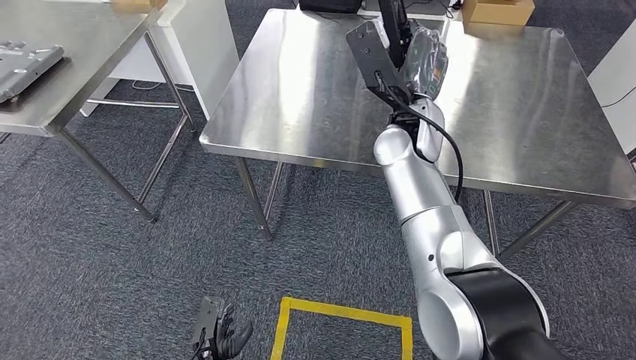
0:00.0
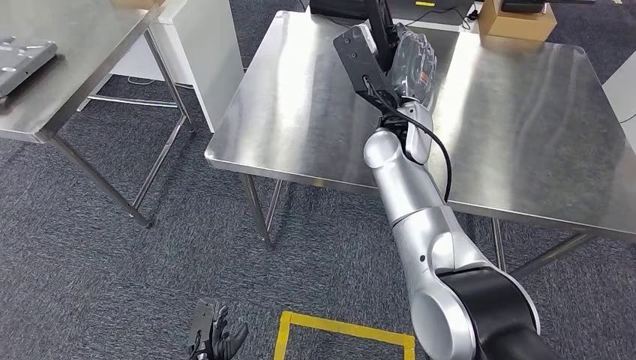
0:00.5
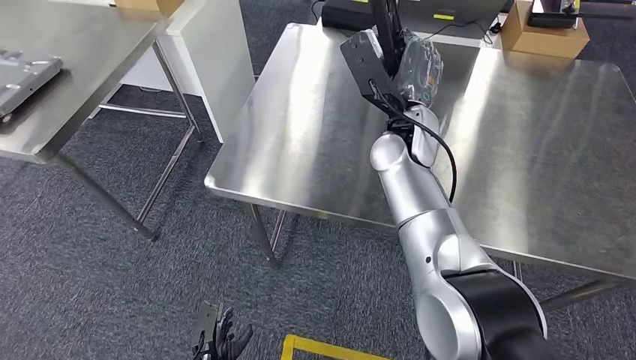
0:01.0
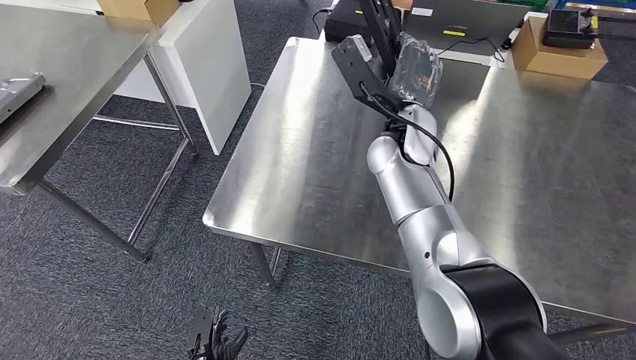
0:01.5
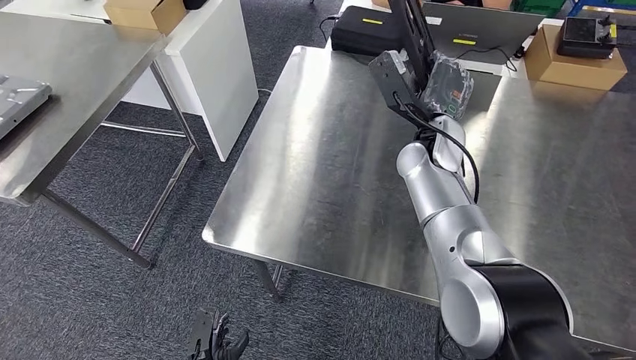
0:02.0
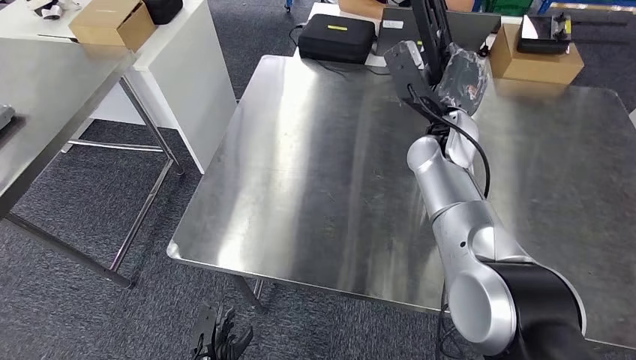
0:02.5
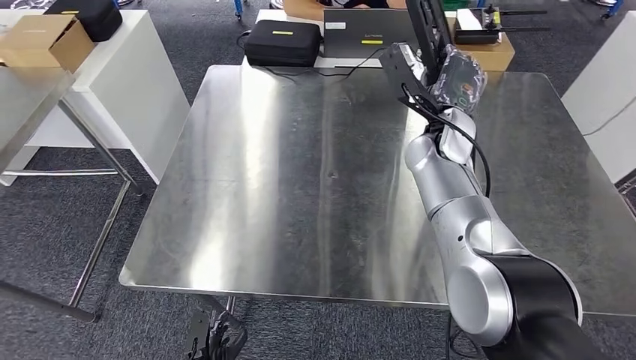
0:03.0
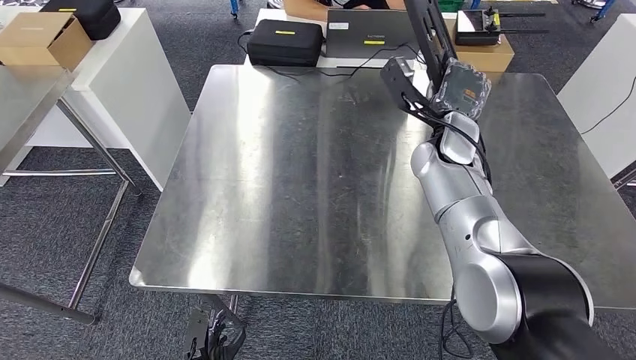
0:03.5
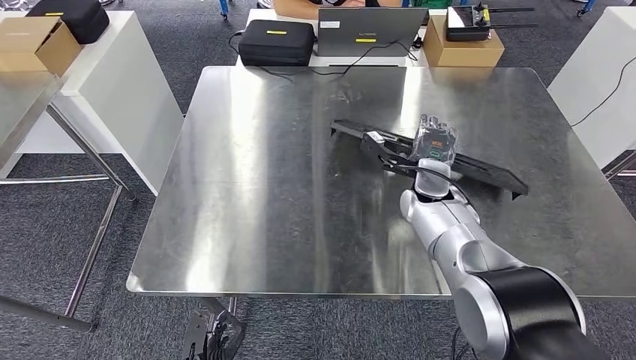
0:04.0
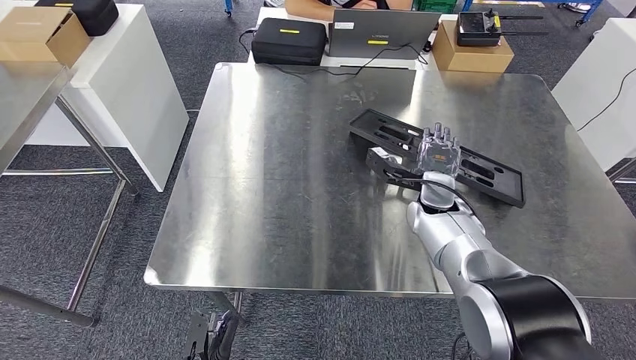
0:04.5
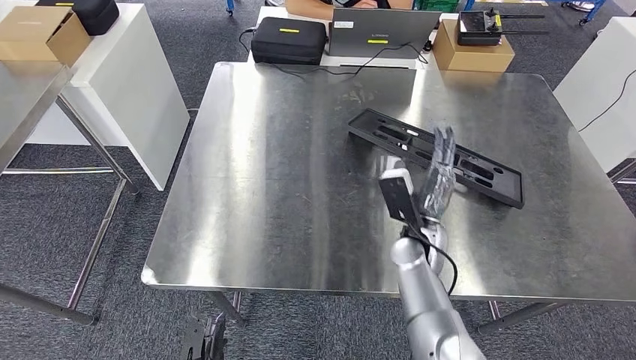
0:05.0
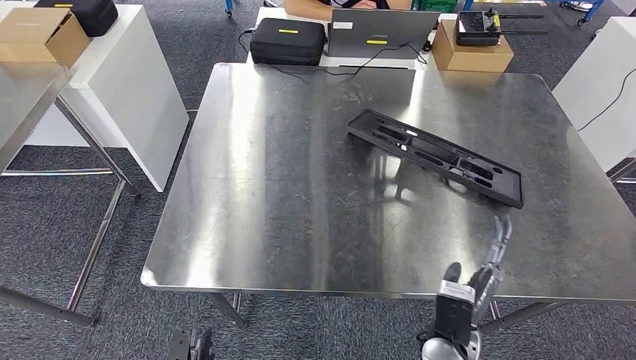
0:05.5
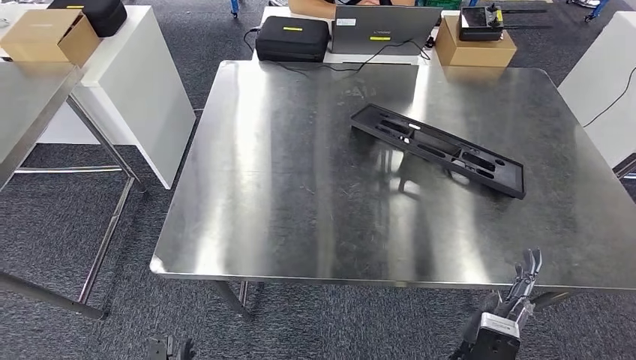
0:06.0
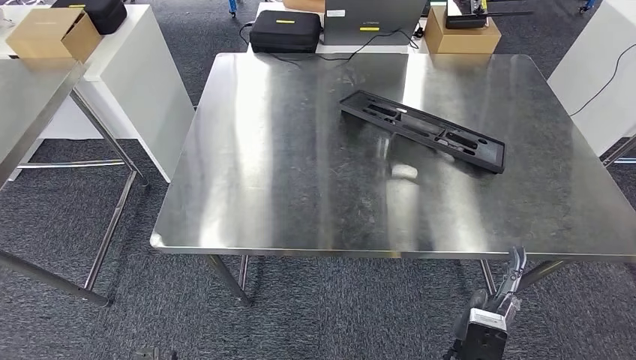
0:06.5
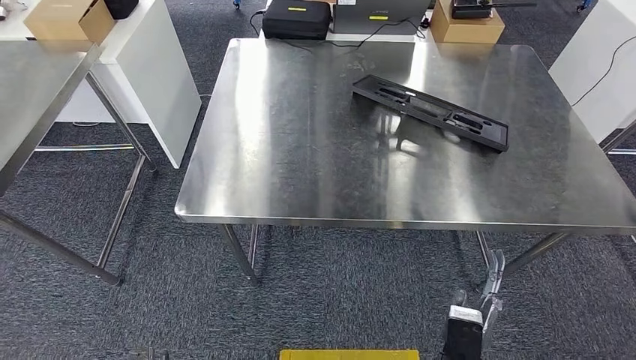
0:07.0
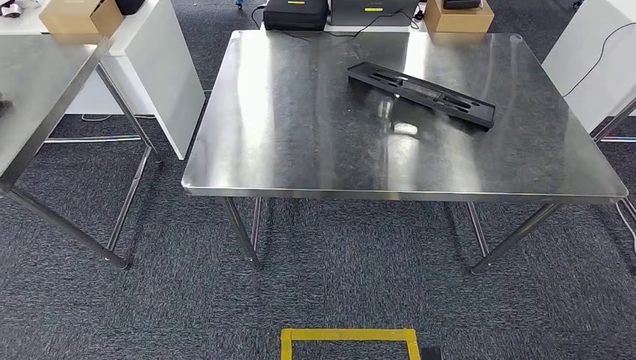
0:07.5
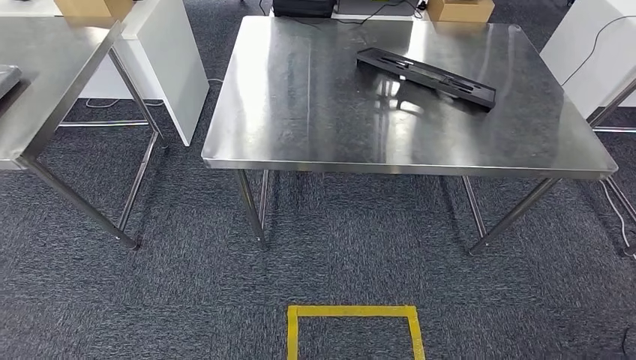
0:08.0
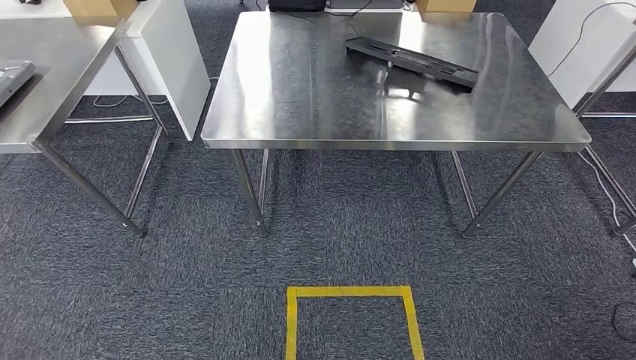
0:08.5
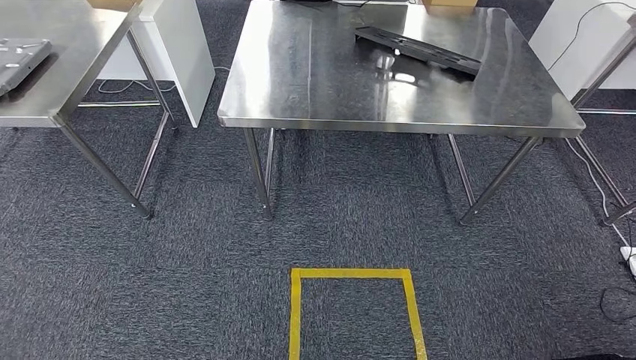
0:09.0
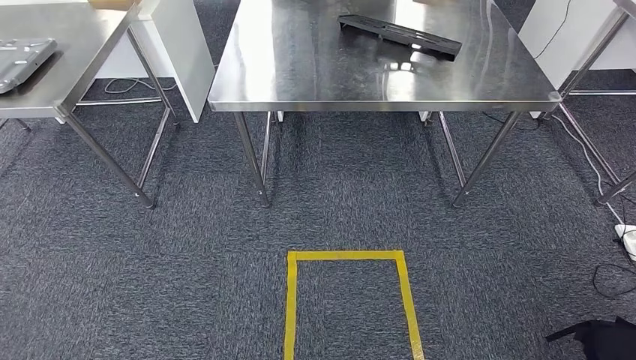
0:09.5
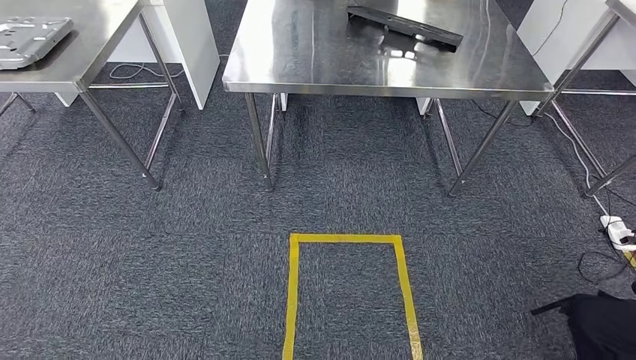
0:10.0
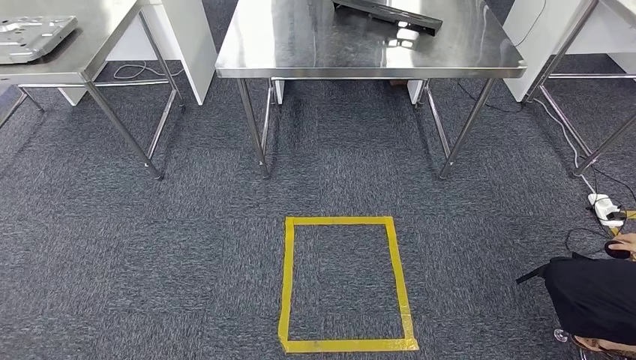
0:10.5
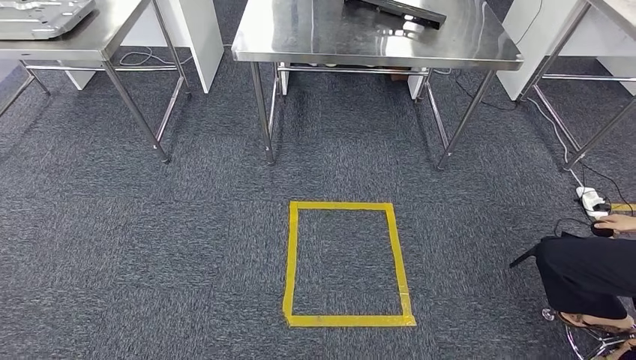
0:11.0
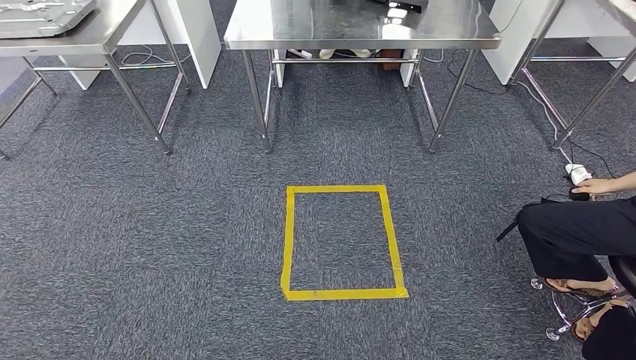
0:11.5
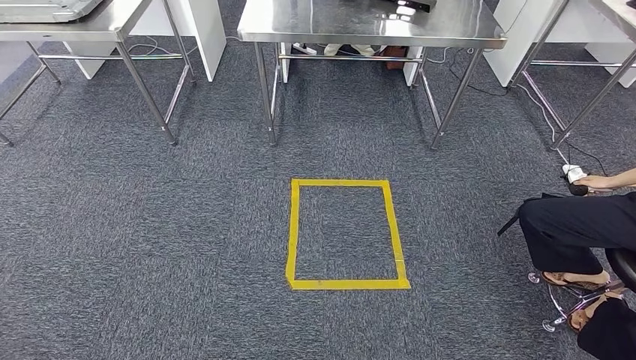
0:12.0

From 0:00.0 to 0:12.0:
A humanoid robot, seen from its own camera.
Step, from 0:00.0 to 0:05.0: Insert the large material into the corresponding hole on the workbench.

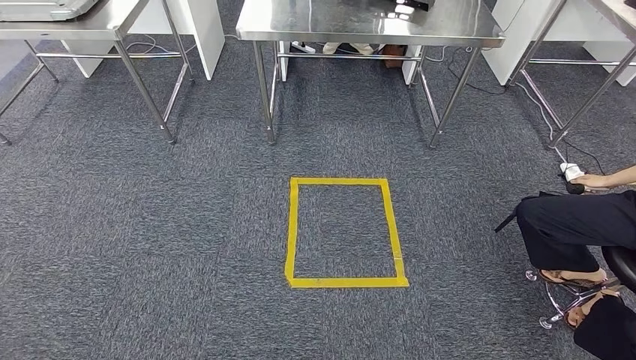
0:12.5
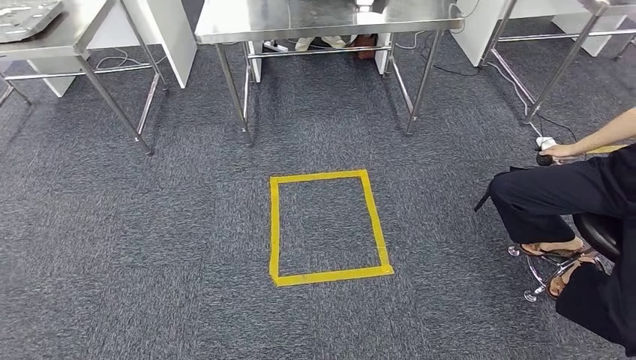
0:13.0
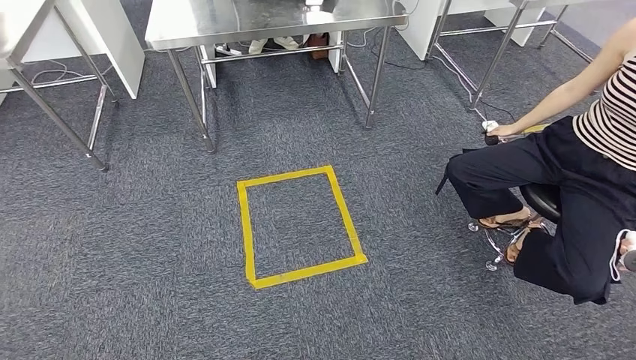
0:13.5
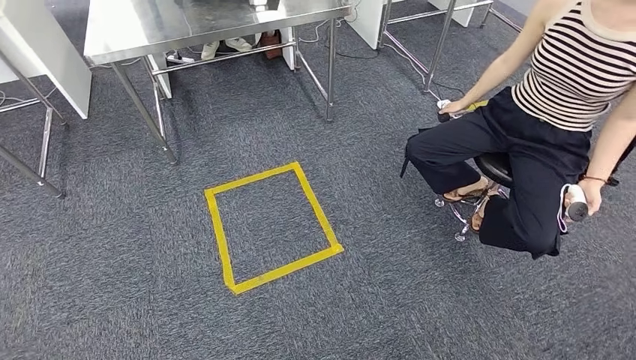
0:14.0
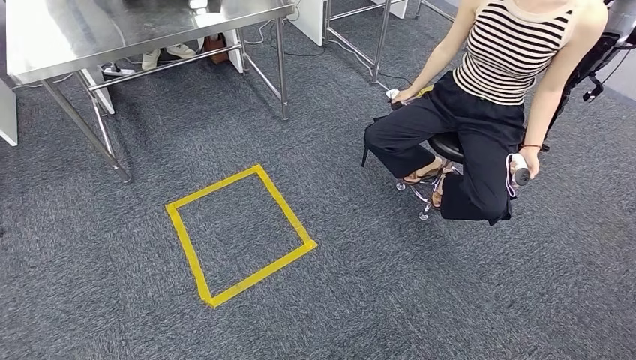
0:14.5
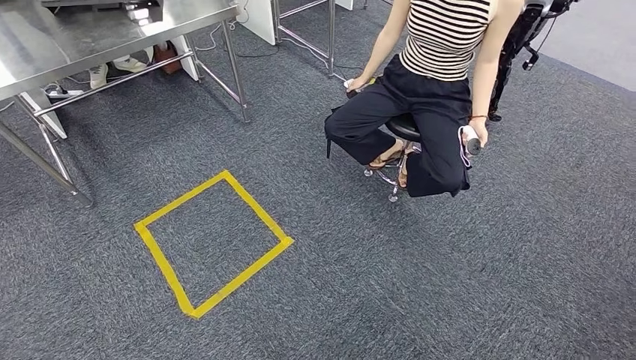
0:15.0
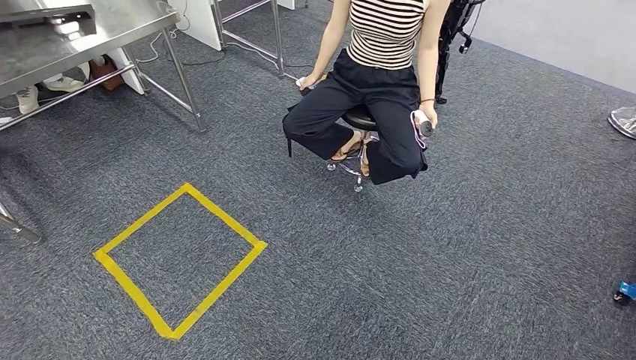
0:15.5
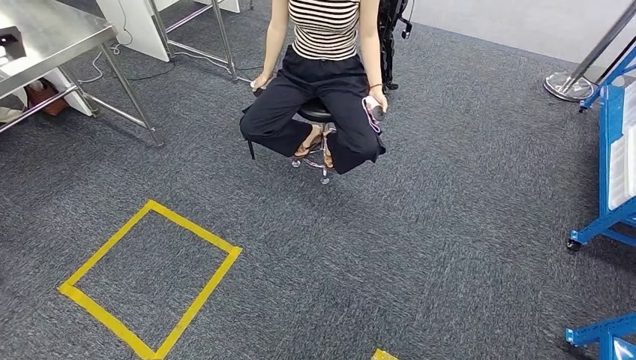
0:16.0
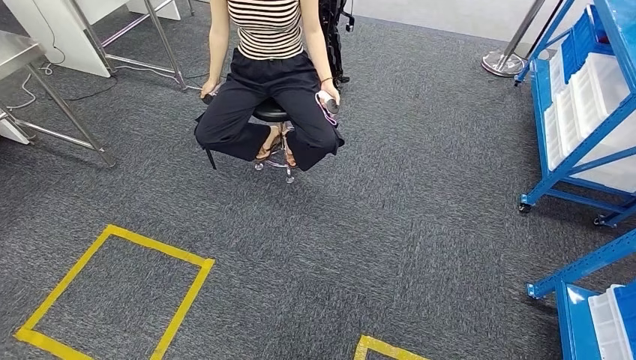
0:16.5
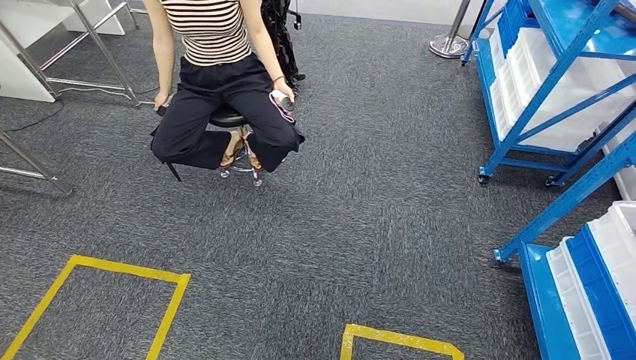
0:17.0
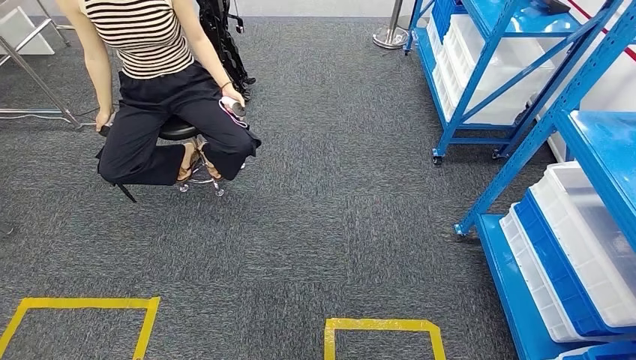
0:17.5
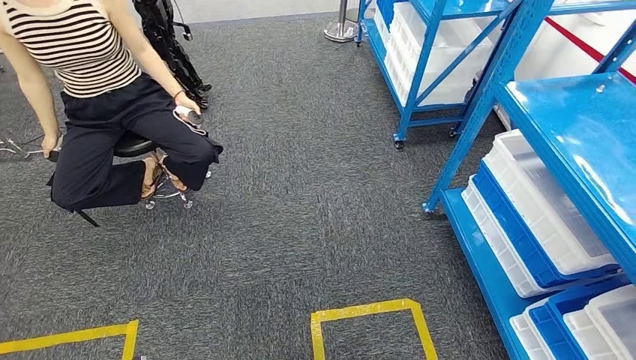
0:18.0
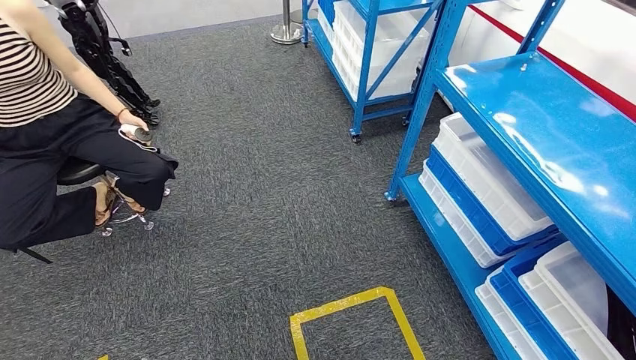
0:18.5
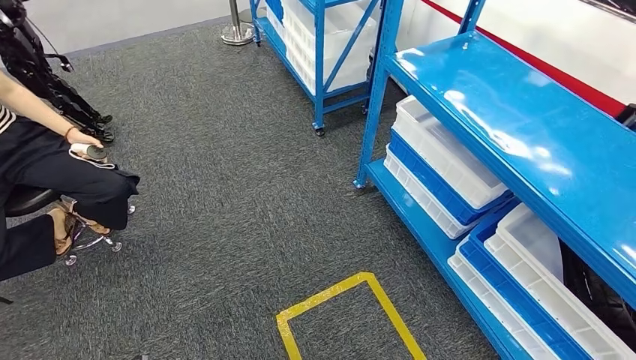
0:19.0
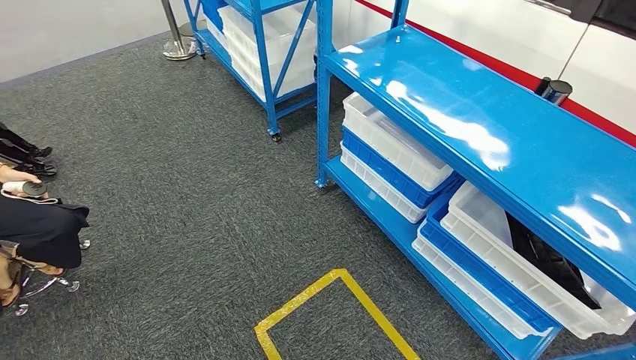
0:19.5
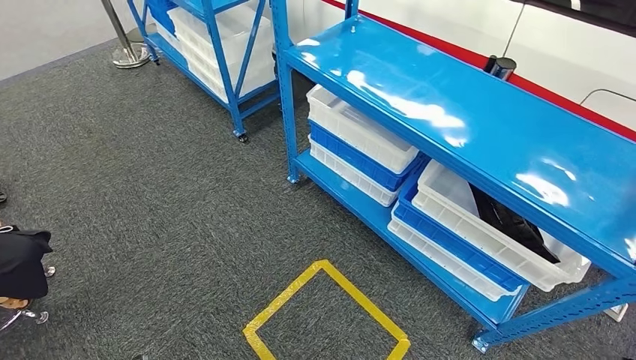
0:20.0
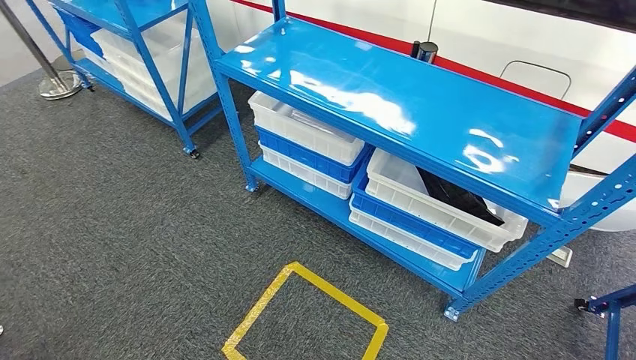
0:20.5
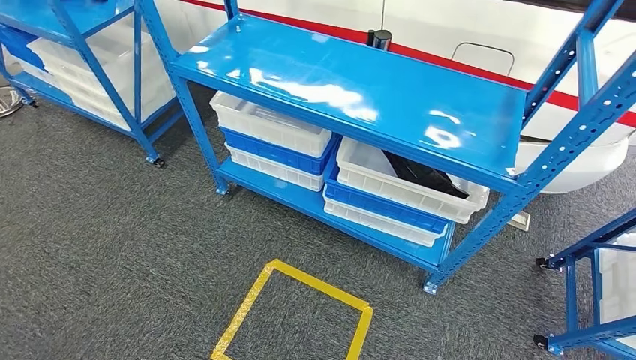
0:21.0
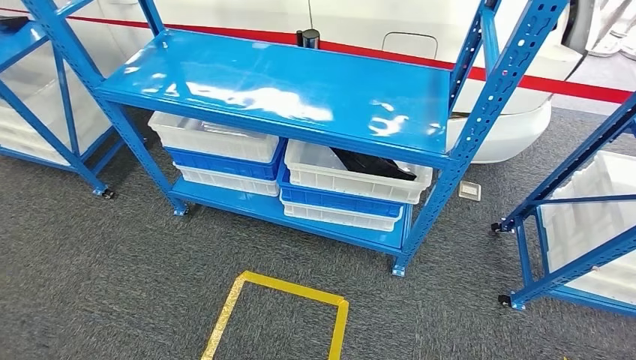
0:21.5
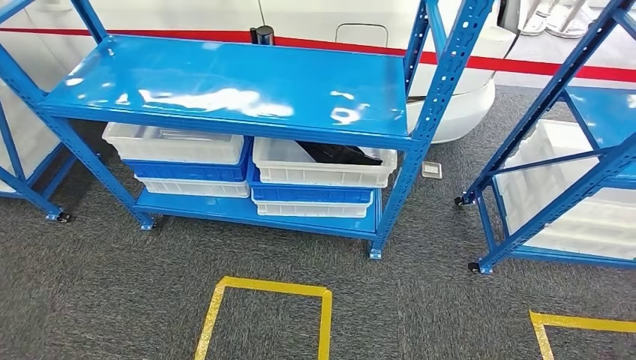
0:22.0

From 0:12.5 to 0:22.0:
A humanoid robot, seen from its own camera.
Step, from 0:12.5 to 0:22.0: Move to the initial position of the shelf.
